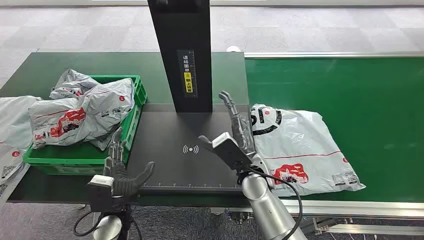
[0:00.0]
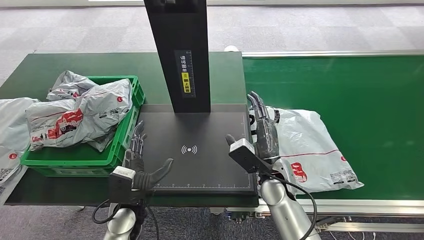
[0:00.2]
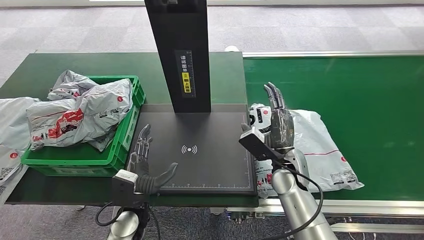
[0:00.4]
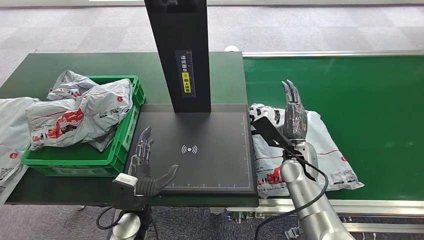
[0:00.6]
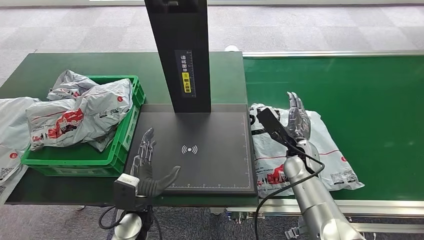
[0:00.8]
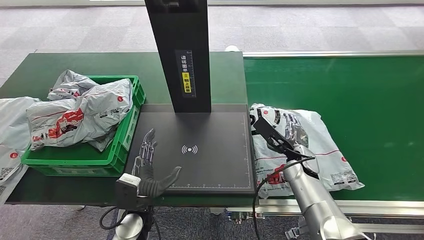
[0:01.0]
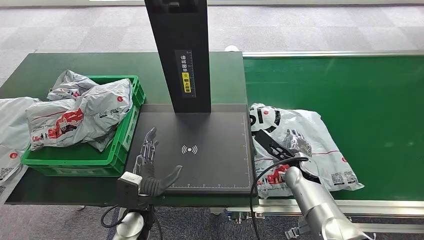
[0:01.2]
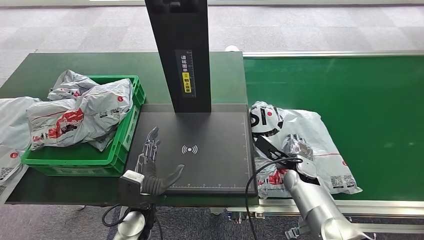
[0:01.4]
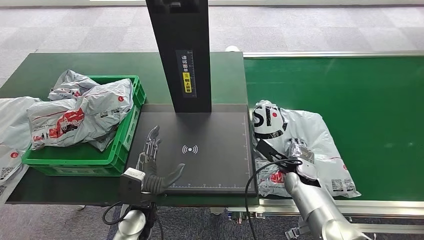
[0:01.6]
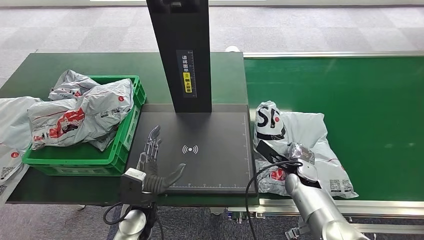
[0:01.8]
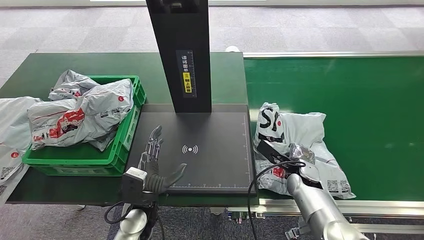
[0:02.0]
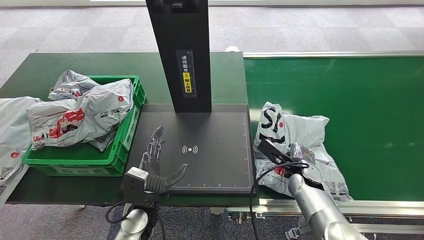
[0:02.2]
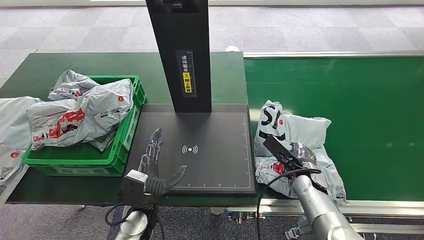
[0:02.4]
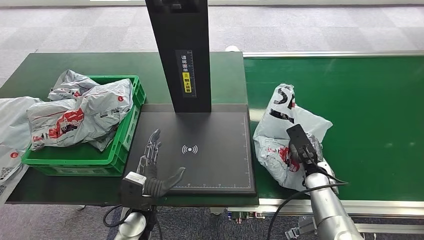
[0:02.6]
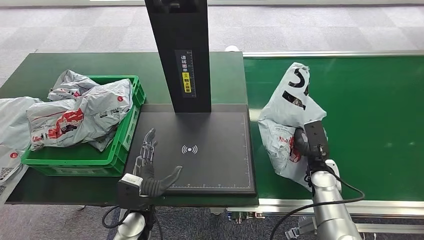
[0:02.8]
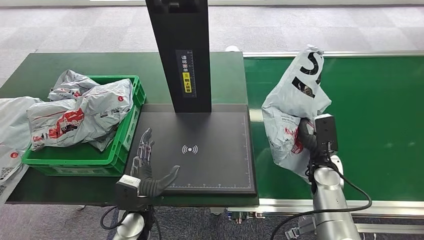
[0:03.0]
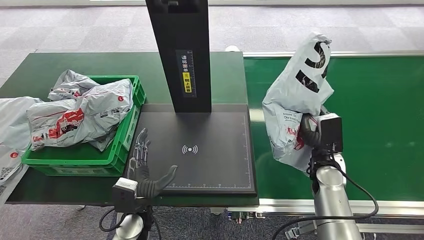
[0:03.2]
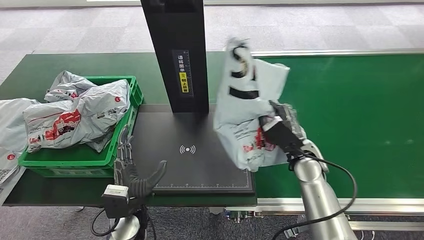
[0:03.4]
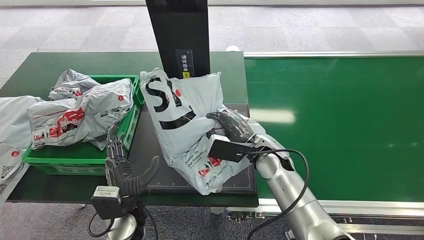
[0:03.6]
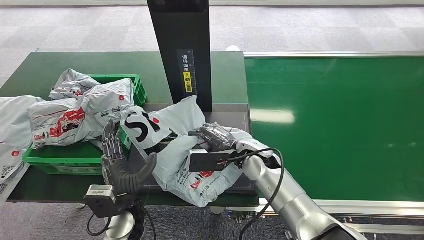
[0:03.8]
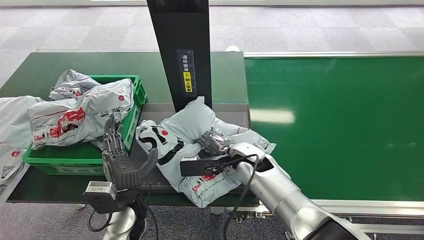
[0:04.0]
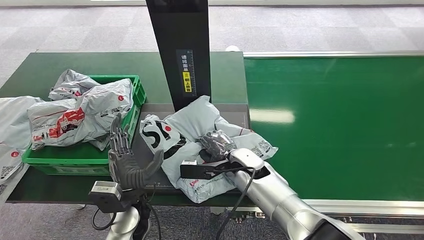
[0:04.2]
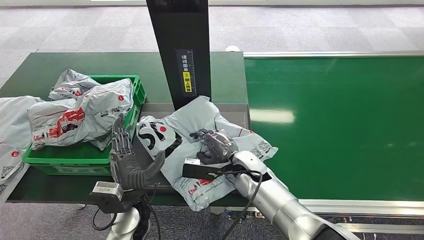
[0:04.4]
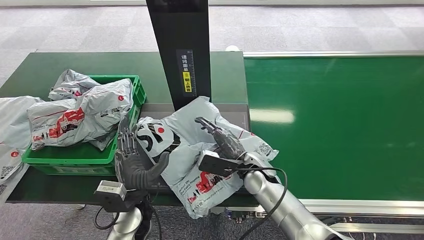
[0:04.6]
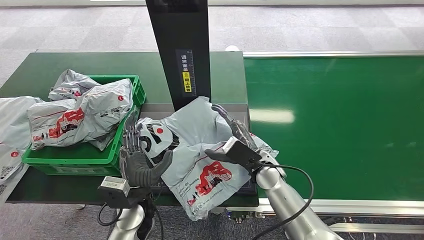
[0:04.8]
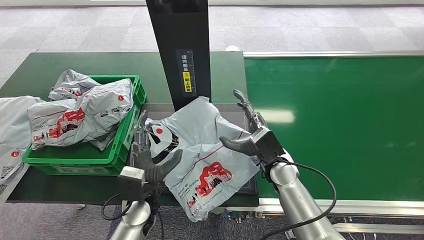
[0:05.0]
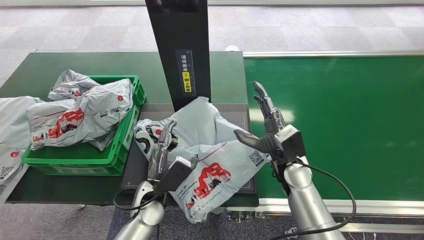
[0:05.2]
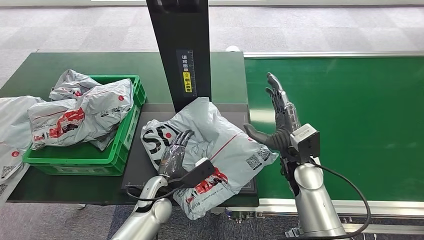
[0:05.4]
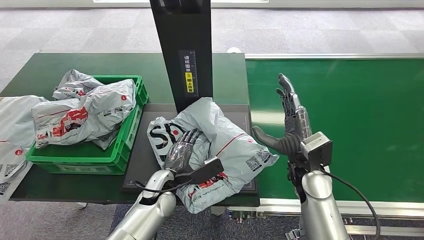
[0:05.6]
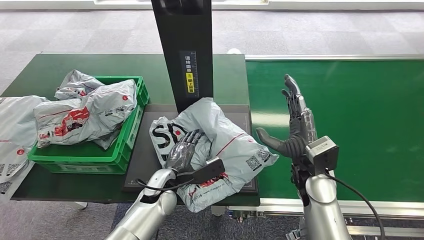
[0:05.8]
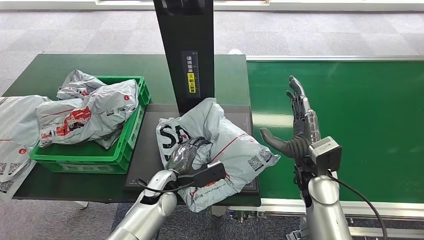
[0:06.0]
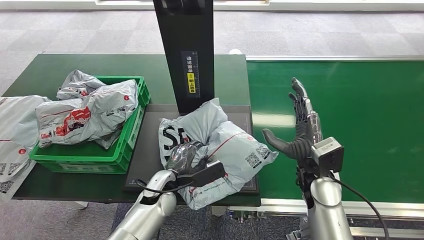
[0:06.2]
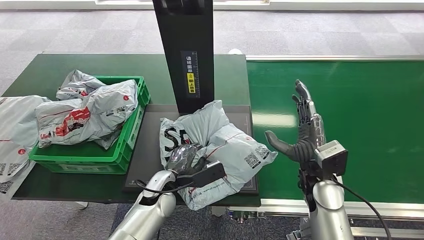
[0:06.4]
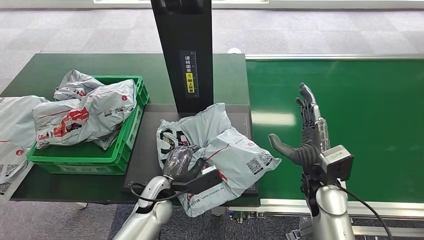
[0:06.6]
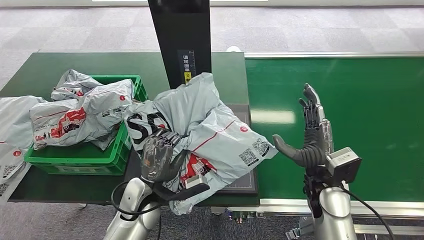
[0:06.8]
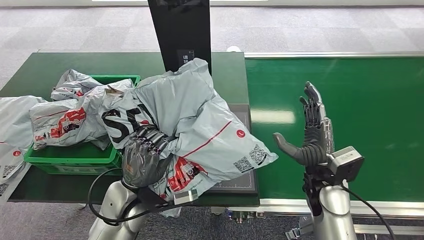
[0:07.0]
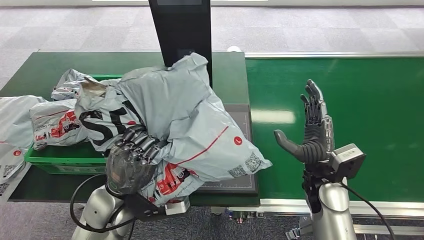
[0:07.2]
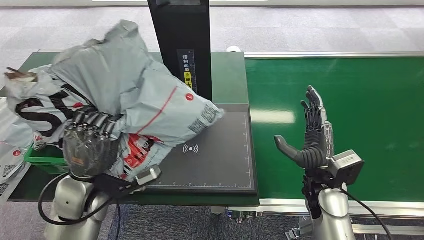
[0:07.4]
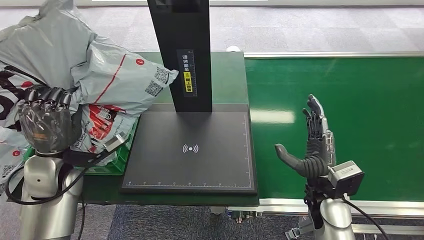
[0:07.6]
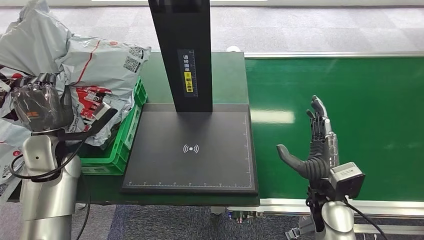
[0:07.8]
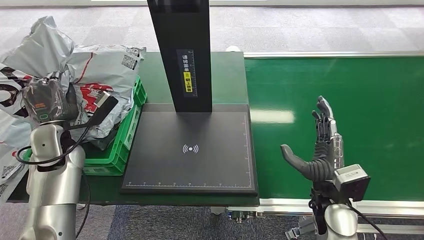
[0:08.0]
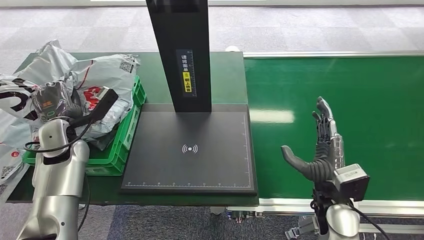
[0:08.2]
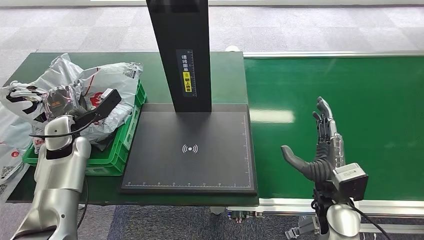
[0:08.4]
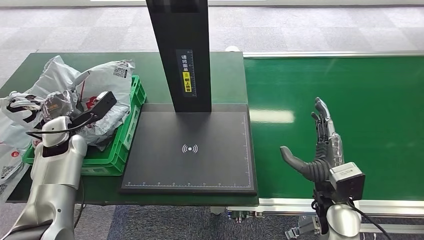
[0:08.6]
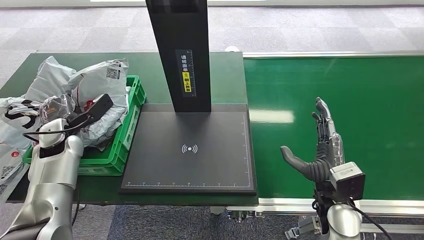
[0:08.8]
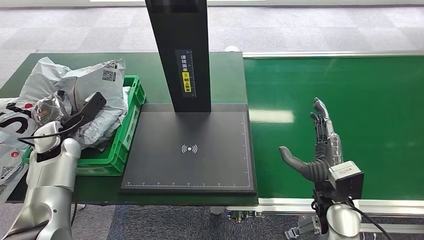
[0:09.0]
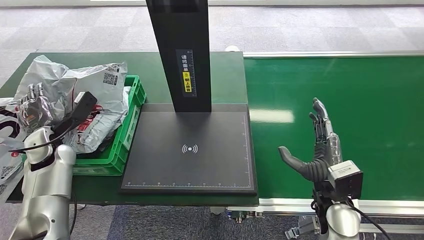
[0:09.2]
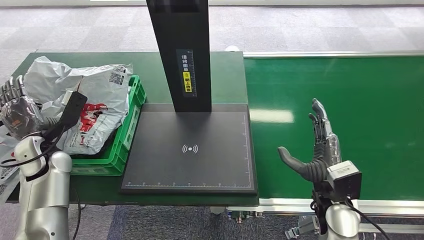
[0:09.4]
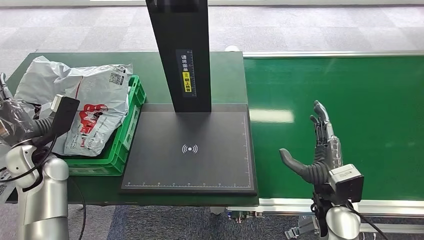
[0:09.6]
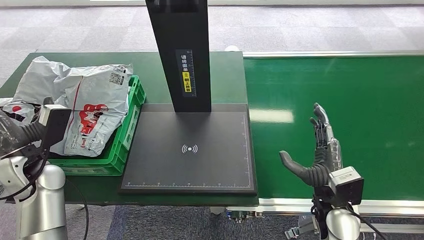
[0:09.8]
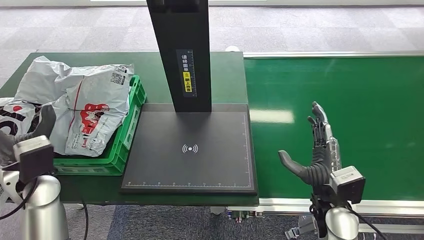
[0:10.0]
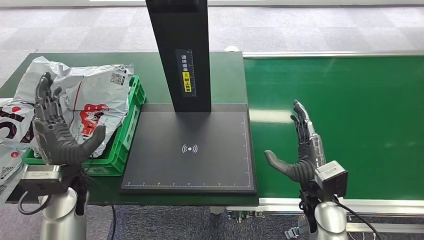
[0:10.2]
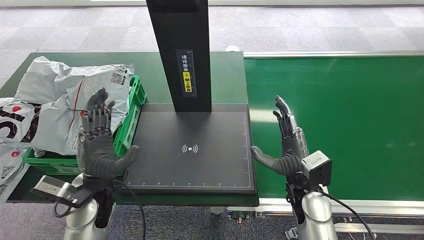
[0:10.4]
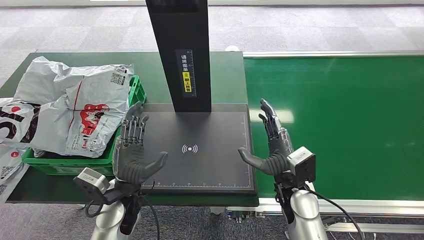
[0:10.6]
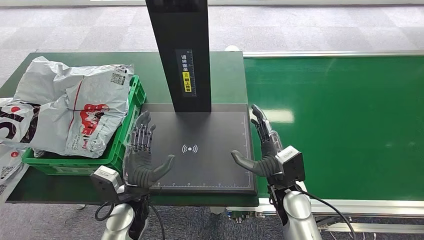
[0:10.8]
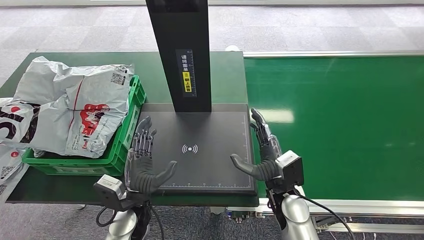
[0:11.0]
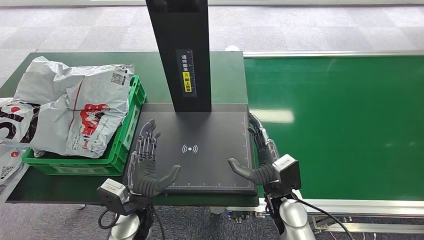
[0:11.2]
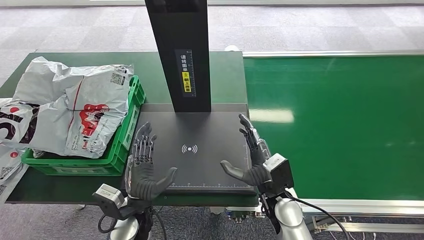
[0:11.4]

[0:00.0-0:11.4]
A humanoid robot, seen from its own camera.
Step, 0:00.0 to 0:02.8: Pick up the package from the conveyor belt.
Step, 0:03.2 to 0:04.6: Place the package onto the inbound machine.
Step, 0:04.8 to 0:07.4: Pick up the package from the inbound machine.
Step, 0:07.6 to 0:11.4: Place the package into the parcel locker.
0:08.6 to 0:10.0: The left hand moves backward, about 10 cm.
0:10.0 to 0:11.4: The left hand shifts approximately 25 cm to the right and downward. The right hand is displaced to the left by roughly 10 cm.

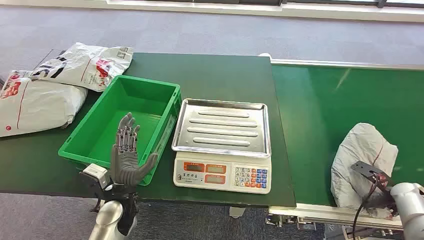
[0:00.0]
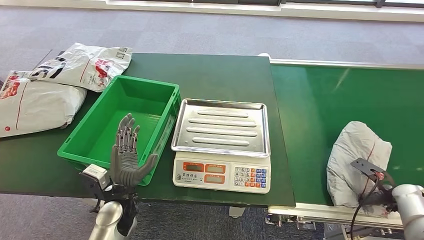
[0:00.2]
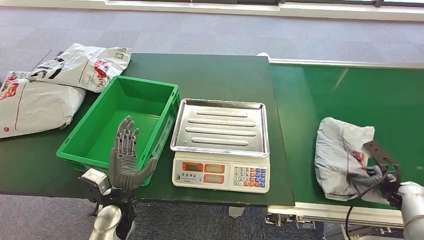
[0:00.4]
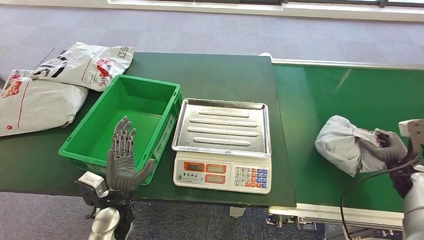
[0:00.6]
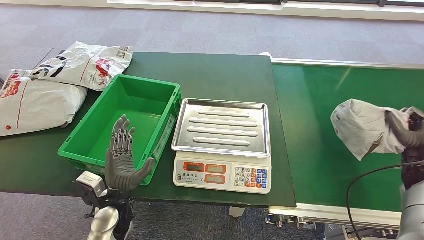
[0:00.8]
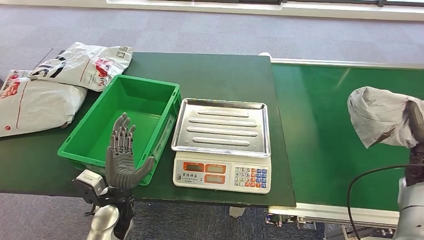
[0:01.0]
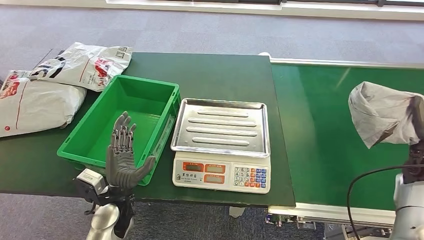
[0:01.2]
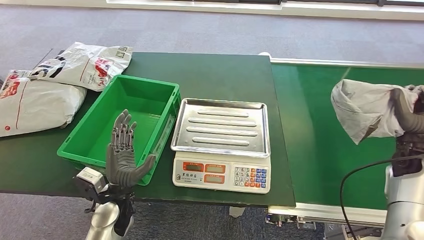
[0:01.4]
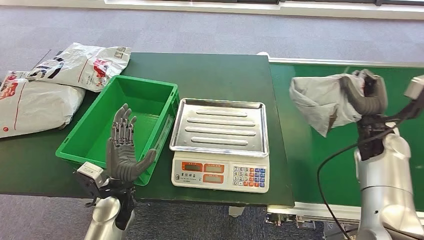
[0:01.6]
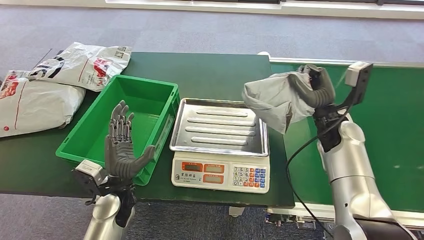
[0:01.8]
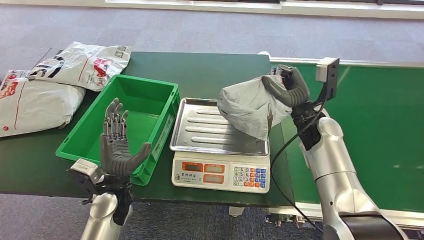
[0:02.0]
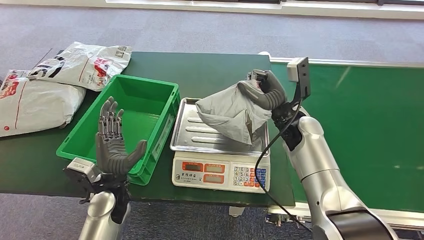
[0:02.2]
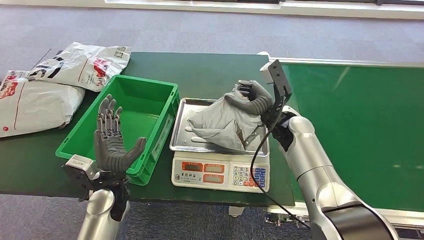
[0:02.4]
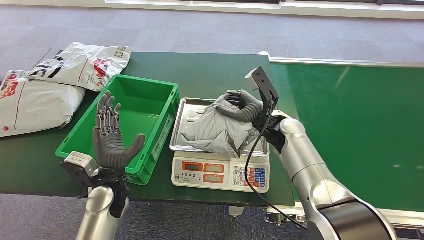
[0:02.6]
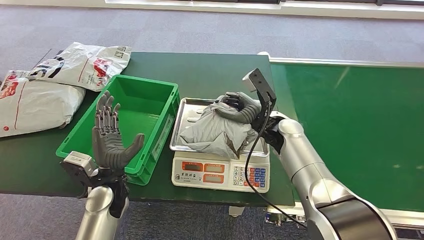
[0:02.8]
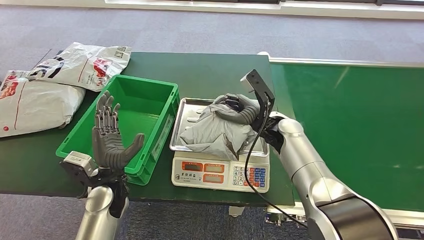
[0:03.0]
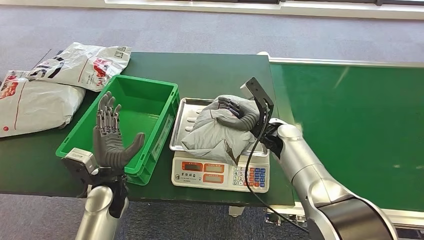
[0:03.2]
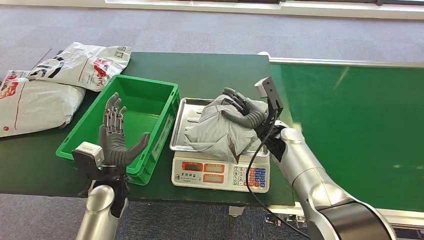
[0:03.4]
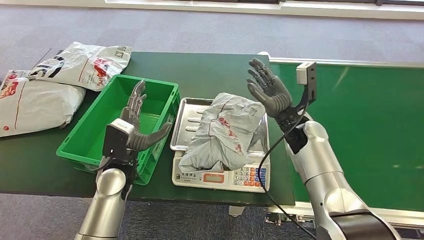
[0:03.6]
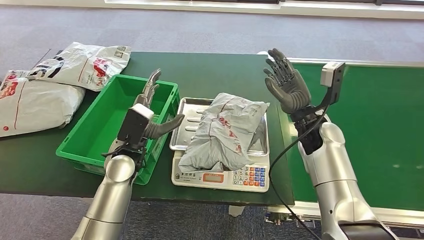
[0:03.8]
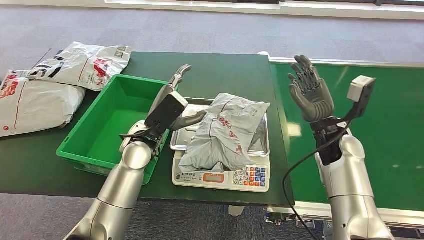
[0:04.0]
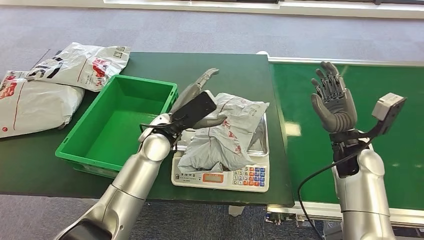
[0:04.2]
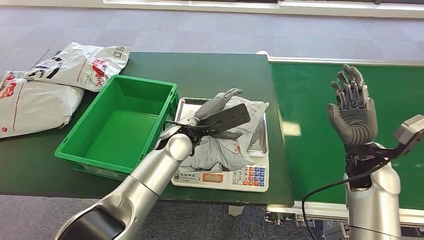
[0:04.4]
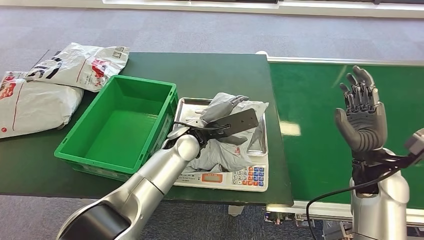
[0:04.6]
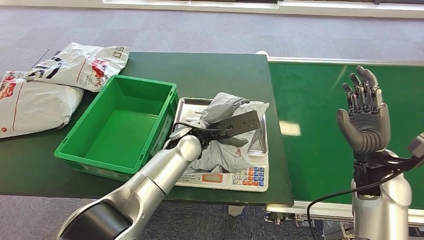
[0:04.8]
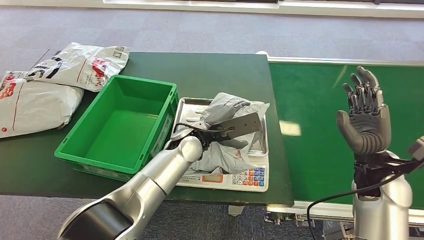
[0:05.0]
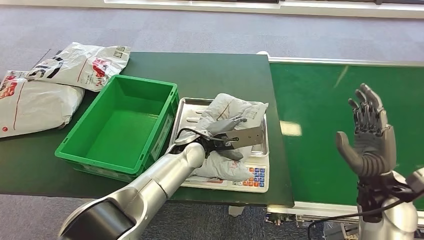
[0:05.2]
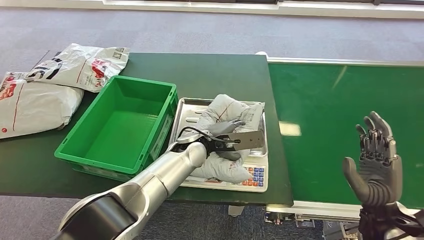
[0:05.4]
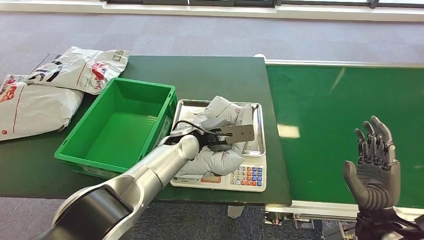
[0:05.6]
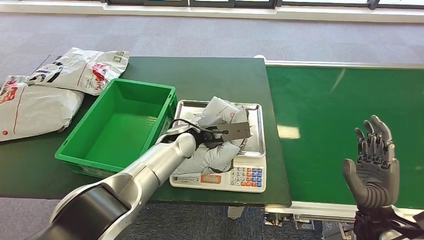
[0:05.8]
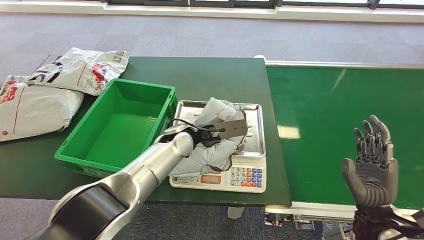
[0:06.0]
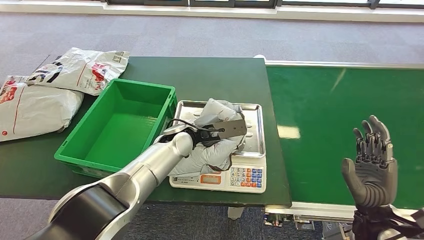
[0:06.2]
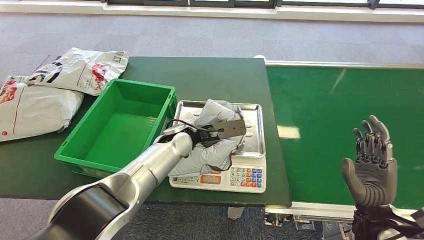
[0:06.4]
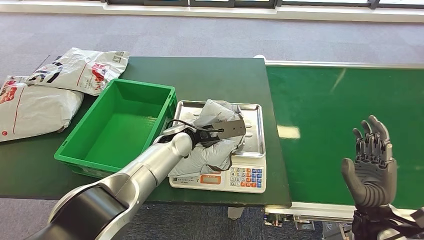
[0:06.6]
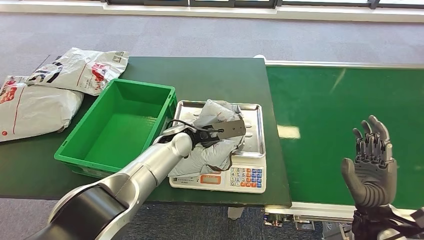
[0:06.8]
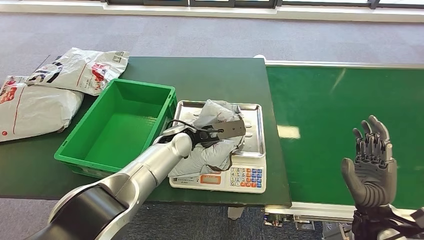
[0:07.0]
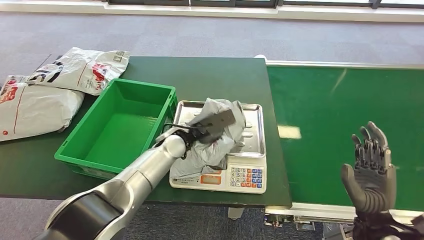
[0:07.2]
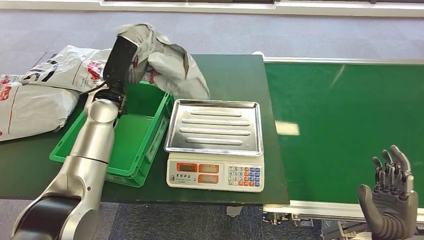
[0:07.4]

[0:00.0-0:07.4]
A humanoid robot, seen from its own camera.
Step, 0:00.0 to 0:01.6: Pick up the package from the conveyor belt.
Step, 0:01.8 to 0:05.0: Place the package onto the inbound machine.
